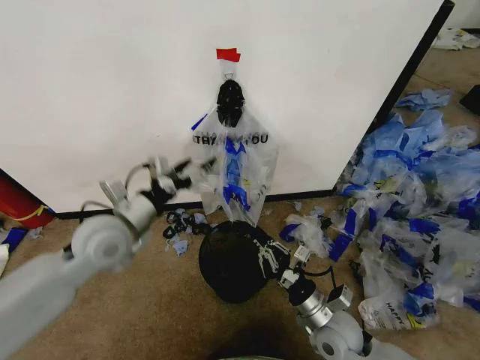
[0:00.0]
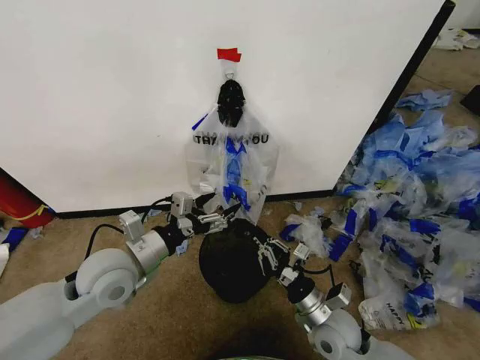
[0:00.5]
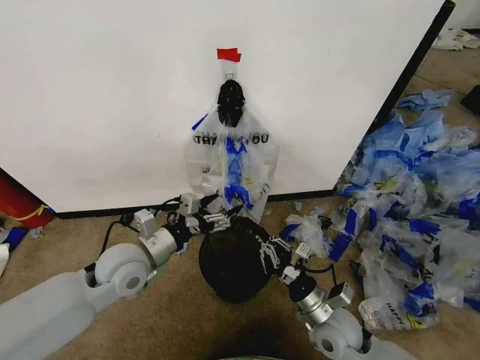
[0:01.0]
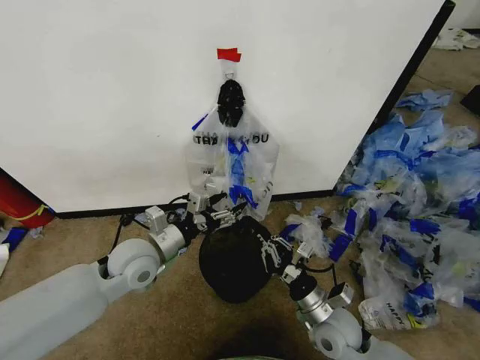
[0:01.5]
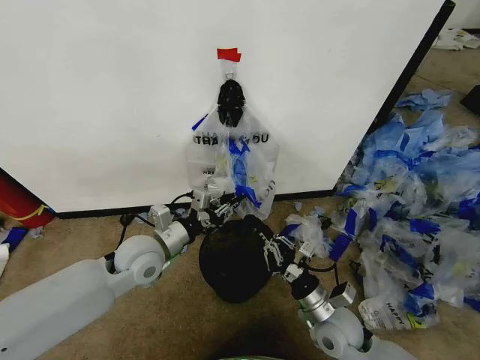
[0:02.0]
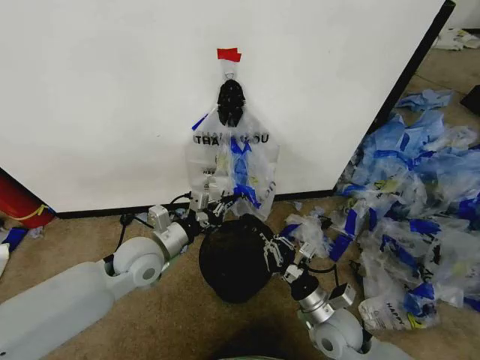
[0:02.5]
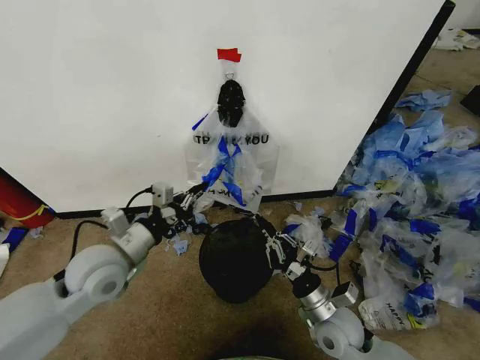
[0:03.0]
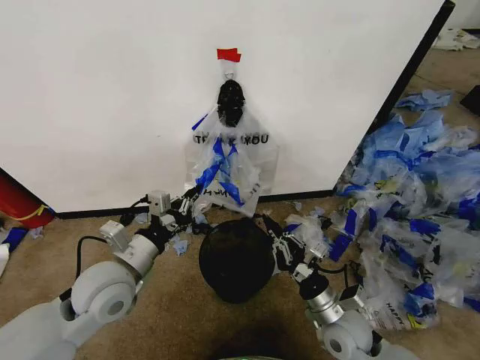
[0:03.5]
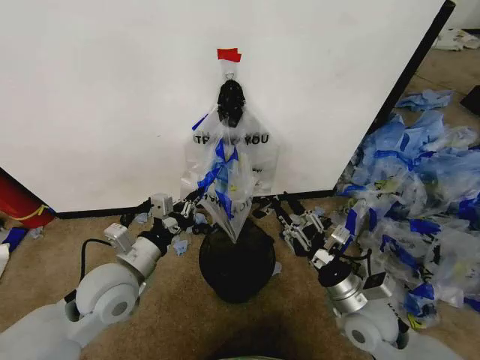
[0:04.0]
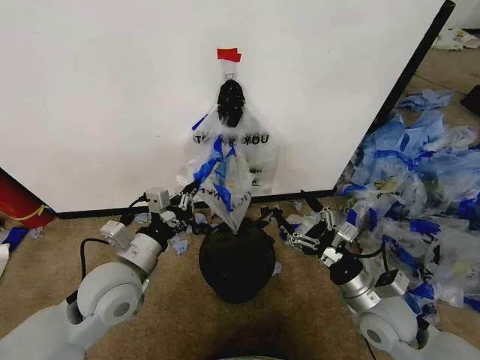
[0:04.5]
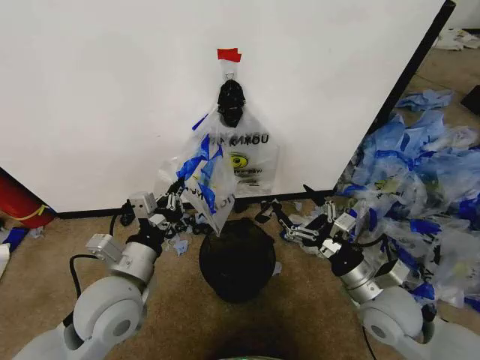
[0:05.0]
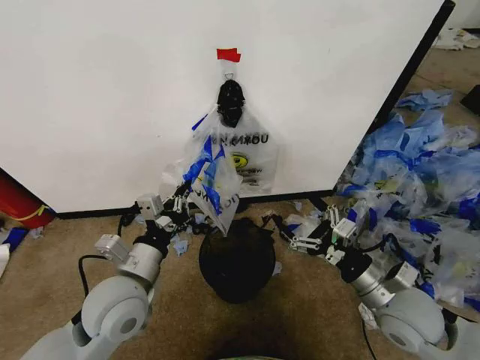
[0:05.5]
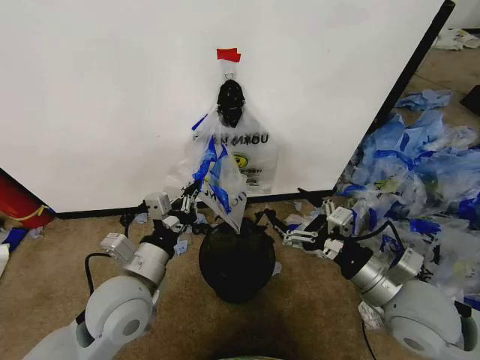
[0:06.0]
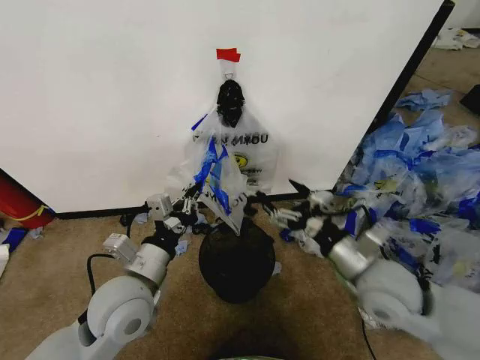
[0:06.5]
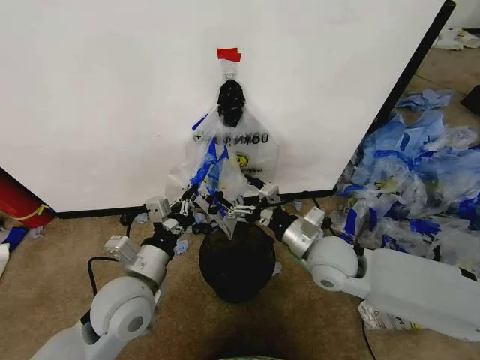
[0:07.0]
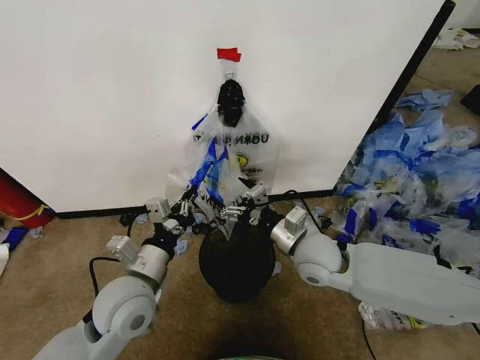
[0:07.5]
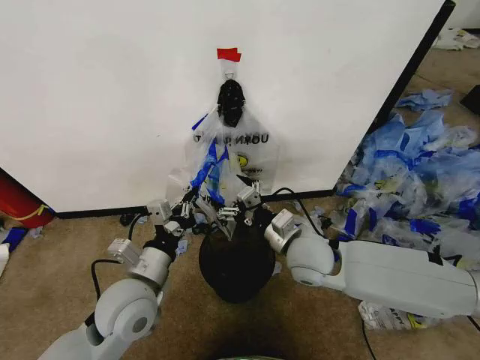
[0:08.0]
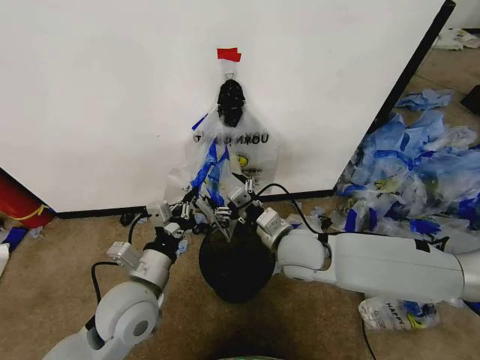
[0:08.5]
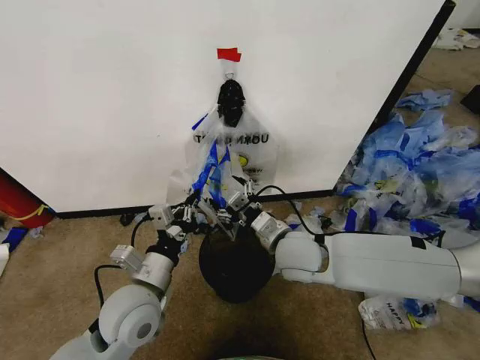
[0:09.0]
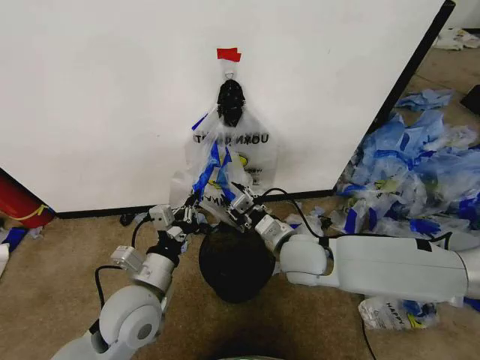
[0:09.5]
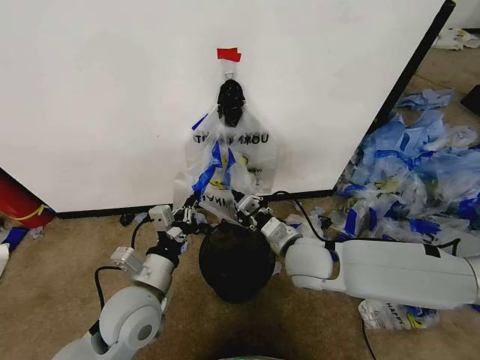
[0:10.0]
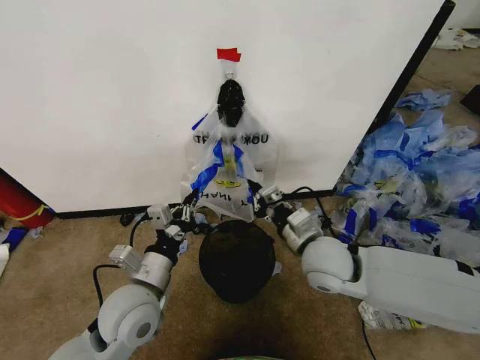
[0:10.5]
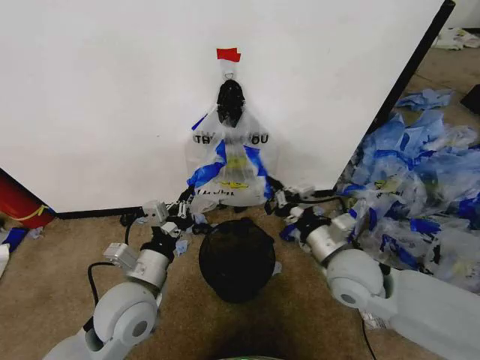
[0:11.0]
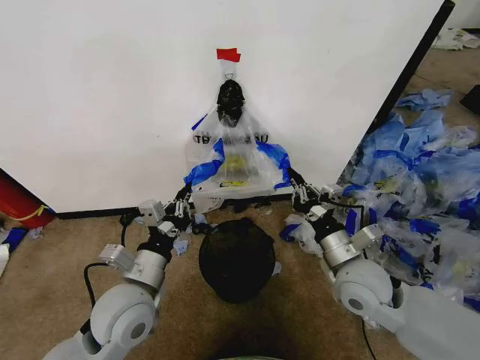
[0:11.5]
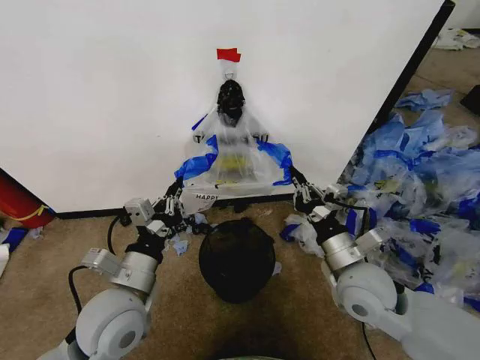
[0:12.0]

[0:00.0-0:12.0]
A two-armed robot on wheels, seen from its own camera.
Task of the whole recording: Pick up the garbage bag from the wall and place it over the trash bin.
0:00.0 to 0:02.0: The left gripper travels downward by roughly 5 cm, and closes its fingers.
0:02.0 to 0:04.0: The right gripper shifts approximately 5 cm upward, and opens its fingers, while the left gripper shifts some 5 cm backward.
0:04.0 to 0:06.0: The left gripper ends up approximately 5 cm from where it was. The right gripper goes roughly 10 cm upward, and opens its fingers.
0:06.0 to 0:08.0: The right gripper travels to the left and forward by approximately 20 cm.
0:08.0 to 0:10.0: The right gripper closes up.
0:10.0 to 0:12.0: The right gripper is displaced to the right and backward by some 10 cm.

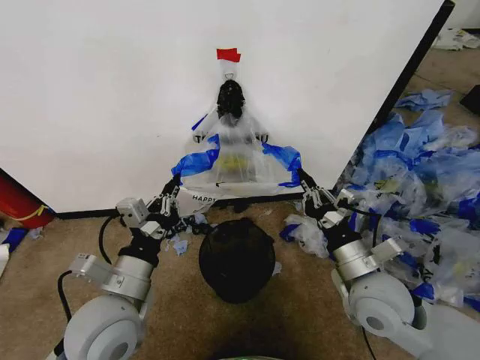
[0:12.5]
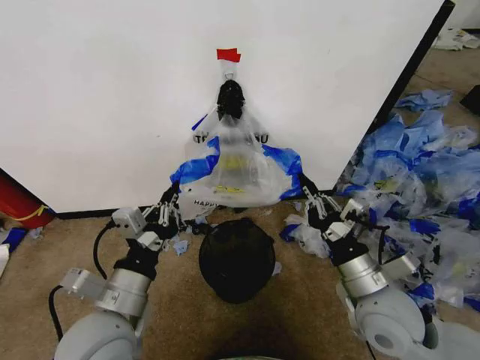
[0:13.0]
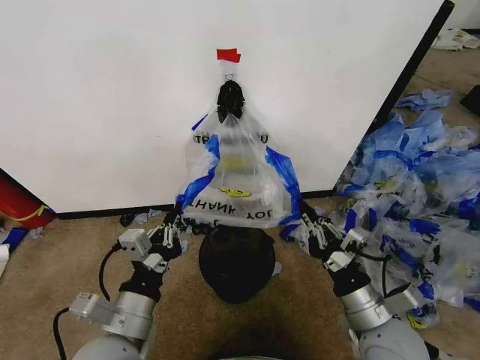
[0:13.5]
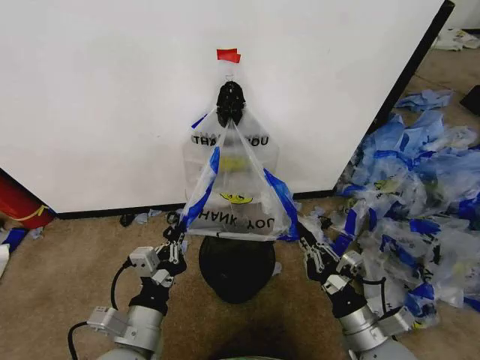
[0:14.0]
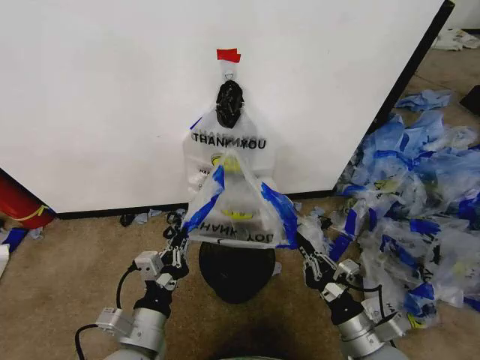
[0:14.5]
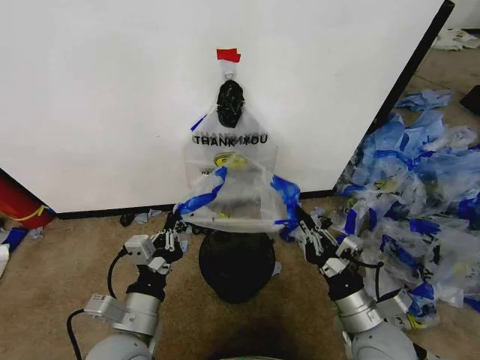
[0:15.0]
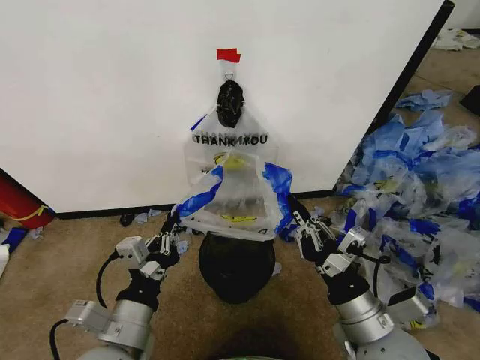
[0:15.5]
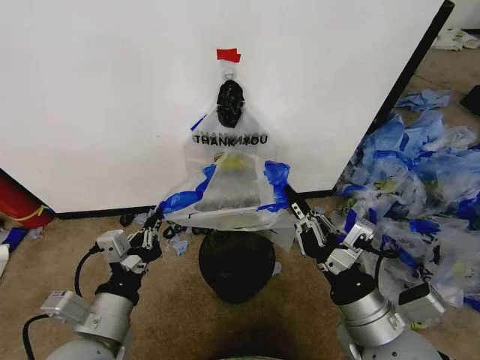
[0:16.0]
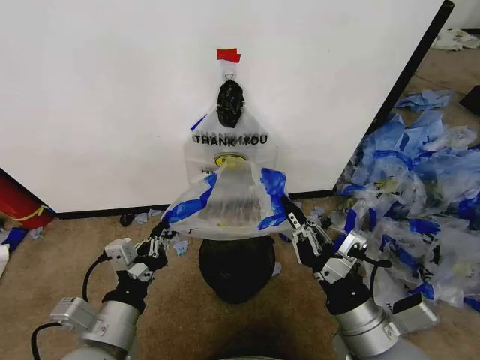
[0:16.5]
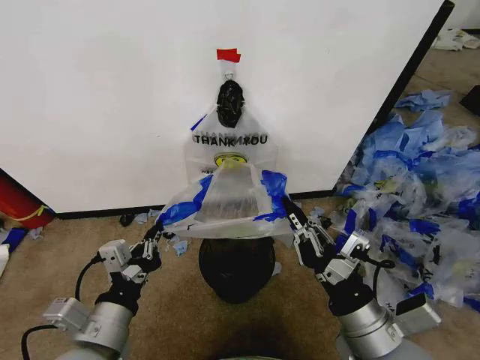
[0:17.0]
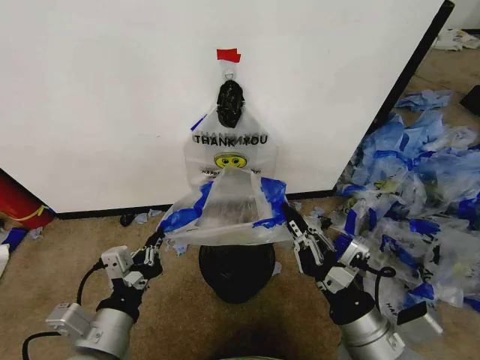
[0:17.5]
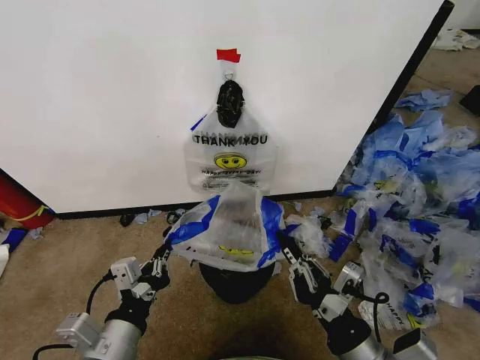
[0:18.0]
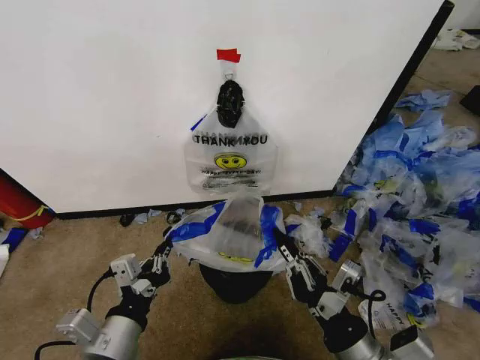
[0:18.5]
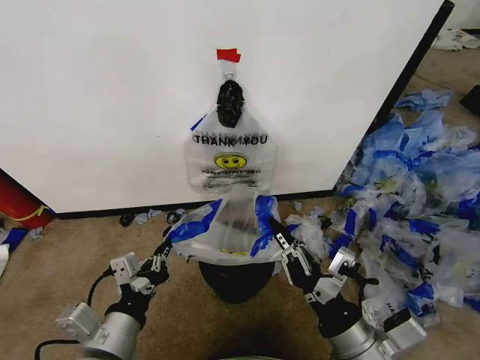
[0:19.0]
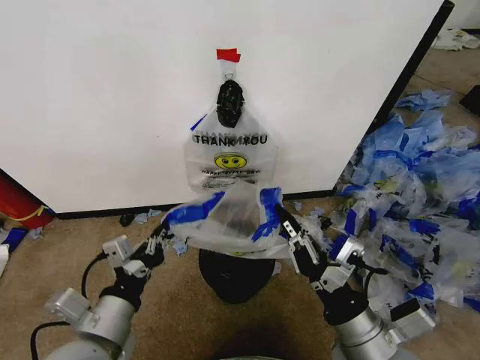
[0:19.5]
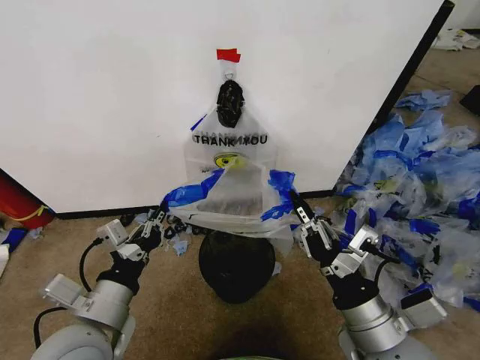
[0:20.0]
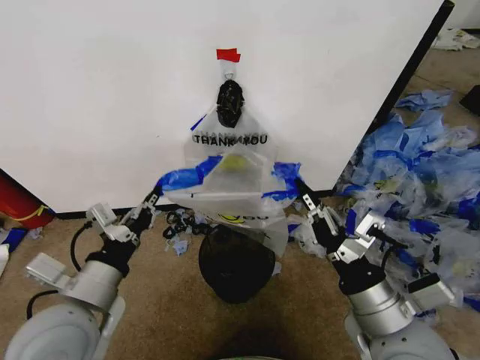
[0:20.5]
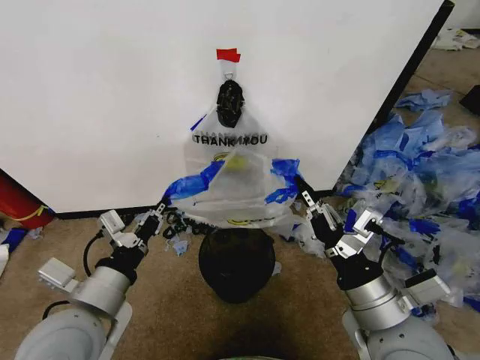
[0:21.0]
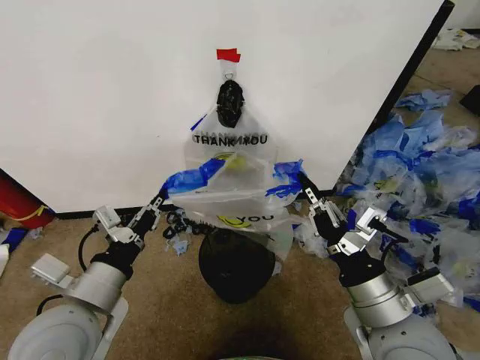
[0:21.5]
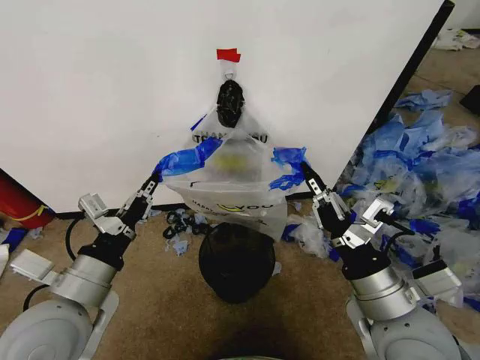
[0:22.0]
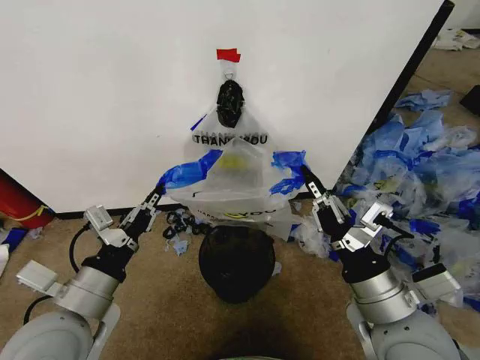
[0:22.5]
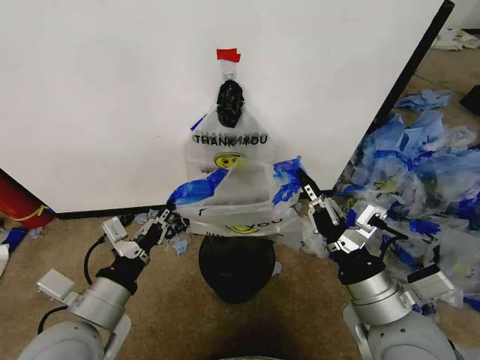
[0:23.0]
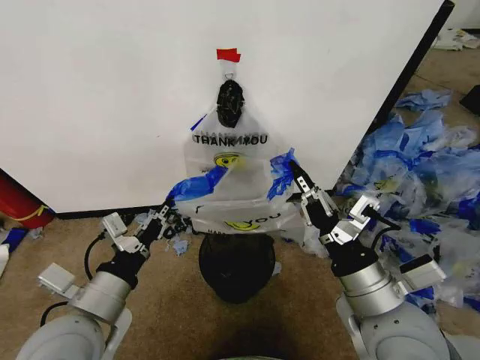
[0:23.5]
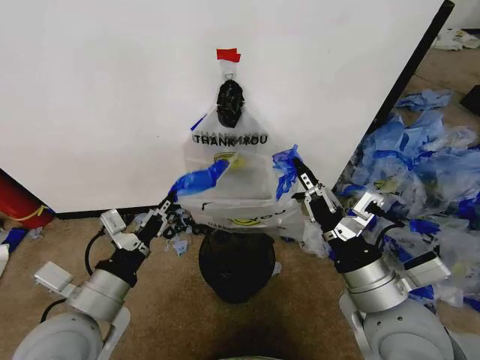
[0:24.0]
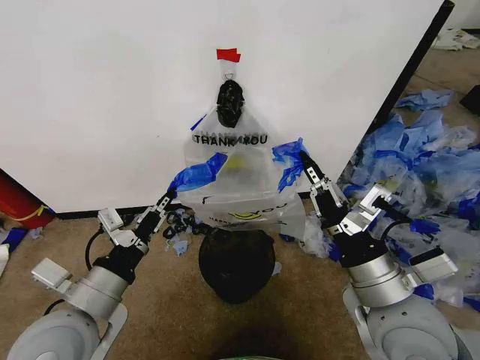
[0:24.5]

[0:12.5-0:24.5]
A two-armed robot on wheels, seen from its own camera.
Task of the whole recording: Pick up the garbage bag from the wall and place it over the trash bin.
0:12.5 to 0:14.5: The grippers both shift downward and backward by approximately 10 cm.
0:14.5 to 0:16.5: The left gripper goes approximately 5 cm upward; the right gripper goes approximately 10 cm upward.
0:18.5 to 0:20.5: The left gripper shifts about 10 cm upward and forward; the right gripper is displaced forward by some 5 cm.
0:20.5 to 0:24.5: The grippers stay close to where they were, moving slightly.

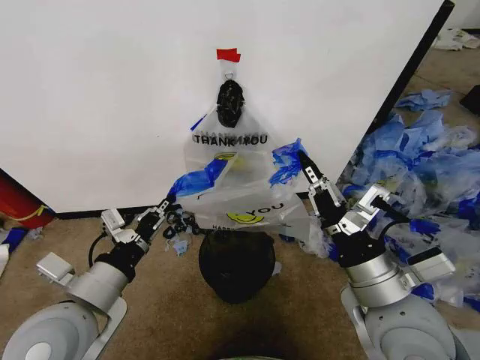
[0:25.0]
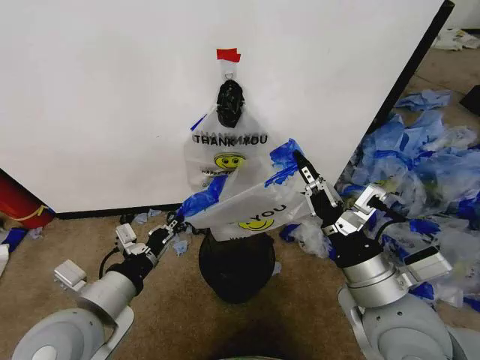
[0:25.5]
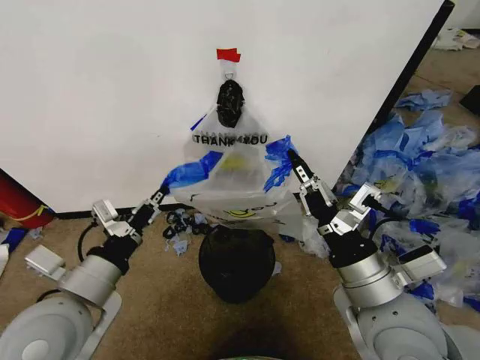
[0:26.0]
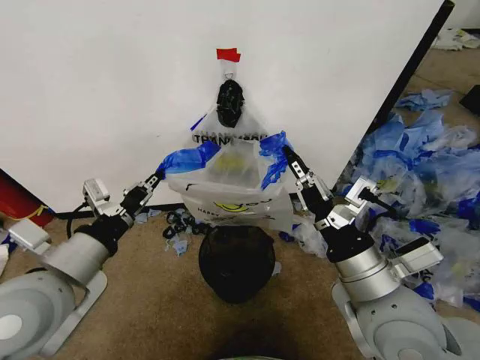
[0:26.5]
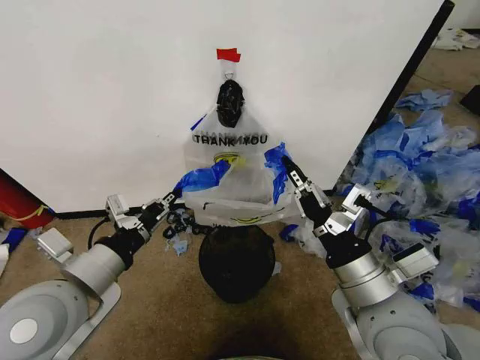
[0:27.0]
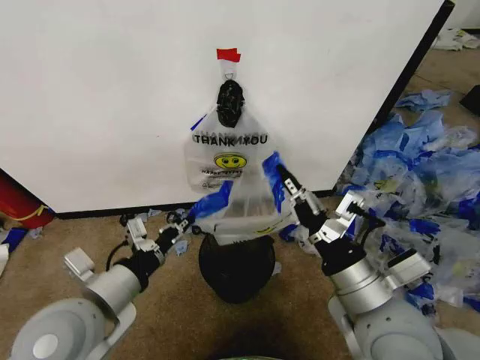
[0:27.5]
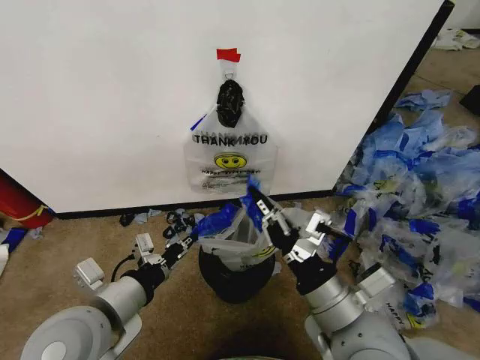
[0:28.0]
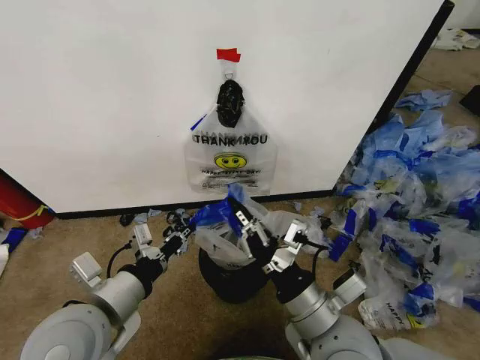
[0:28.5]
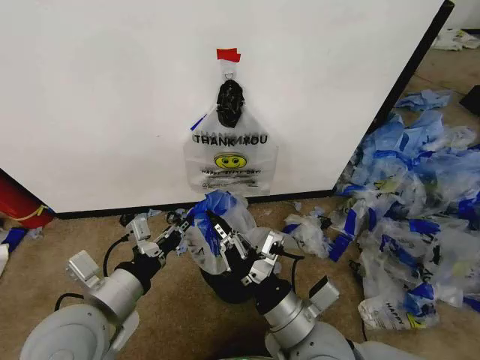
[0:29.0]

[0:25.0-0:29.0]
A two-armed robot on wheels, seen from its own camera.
Task of the whole recording: Pick up the garbage bag from the wall and place it over the trash bin.
0:25.0 to 0:27.0: The grippers move only a little.
0:27.0 to 0:29.0: The right gripper goes roughly 10 cm to the left and downward.
